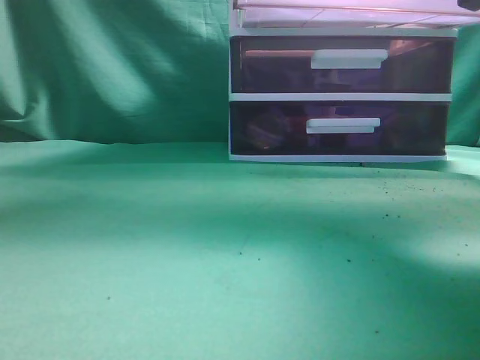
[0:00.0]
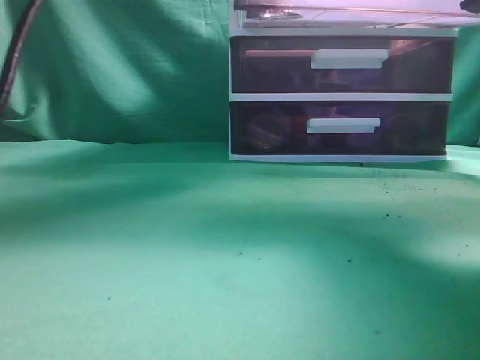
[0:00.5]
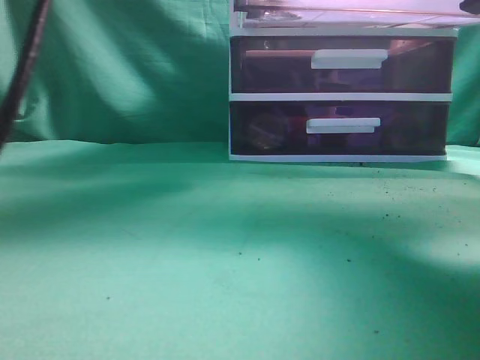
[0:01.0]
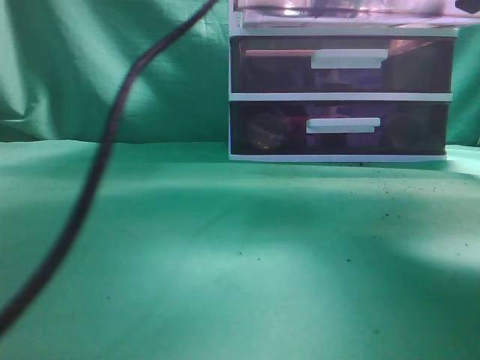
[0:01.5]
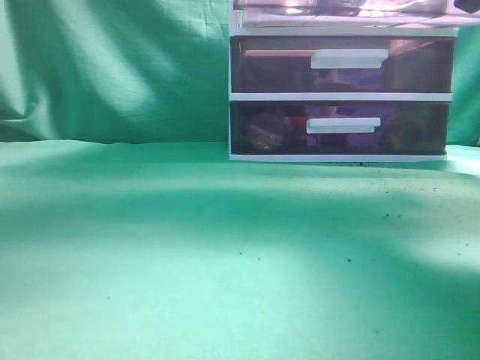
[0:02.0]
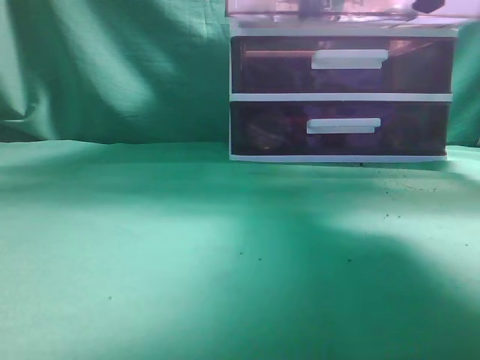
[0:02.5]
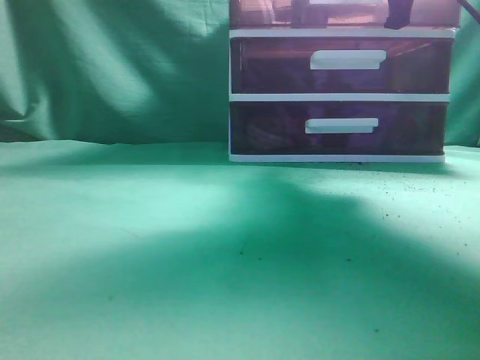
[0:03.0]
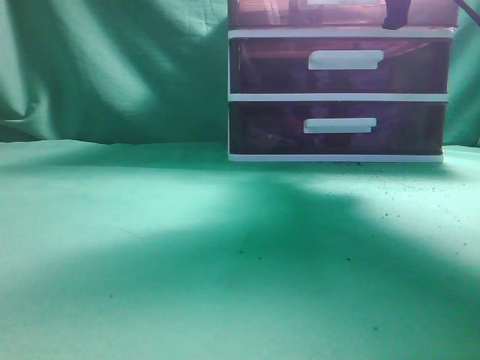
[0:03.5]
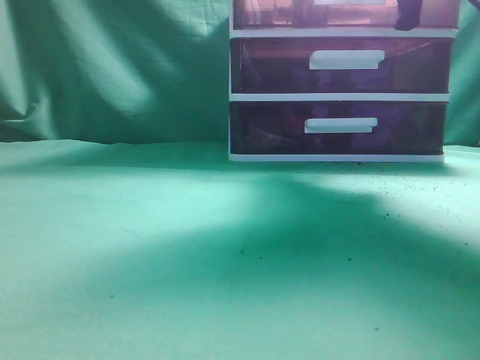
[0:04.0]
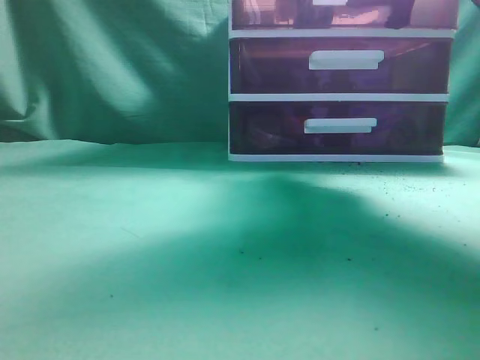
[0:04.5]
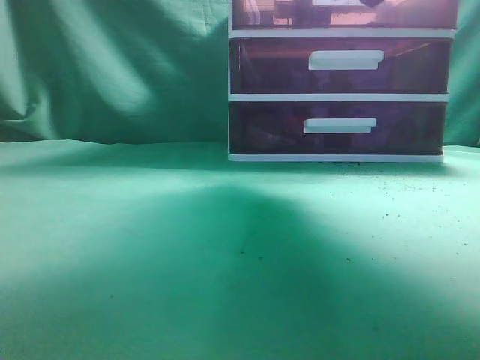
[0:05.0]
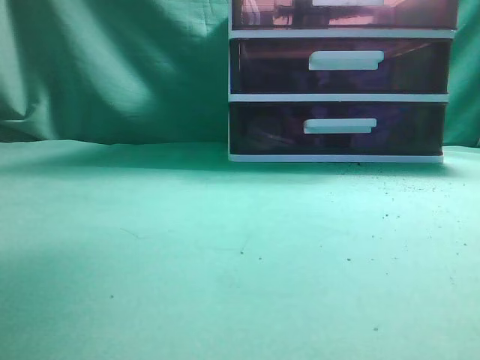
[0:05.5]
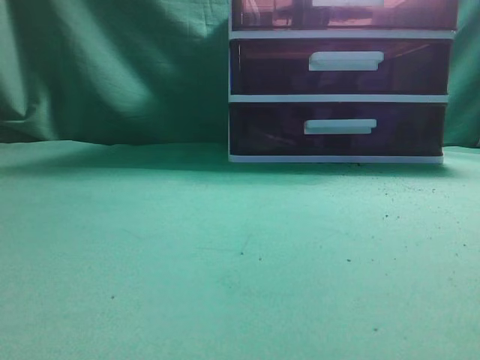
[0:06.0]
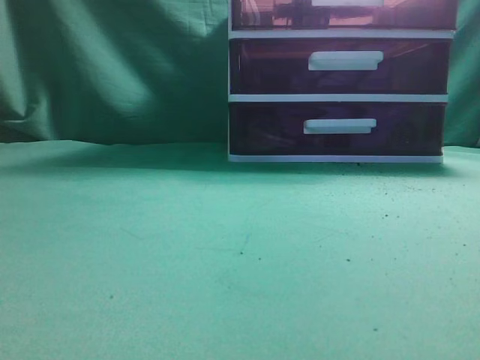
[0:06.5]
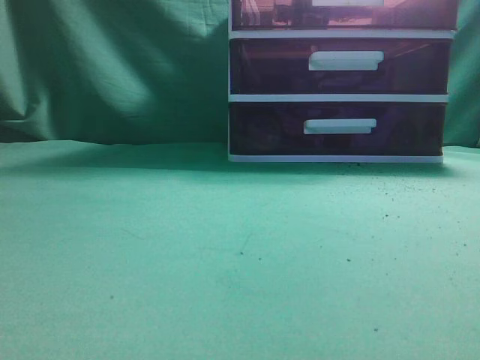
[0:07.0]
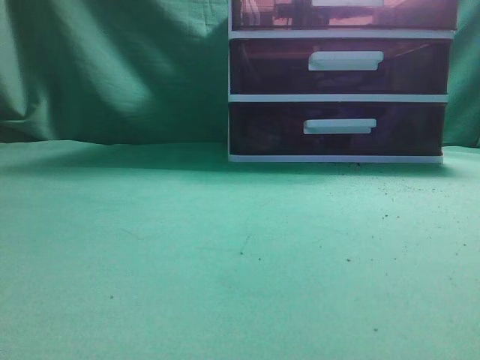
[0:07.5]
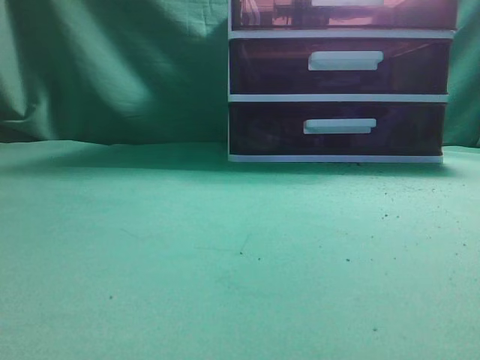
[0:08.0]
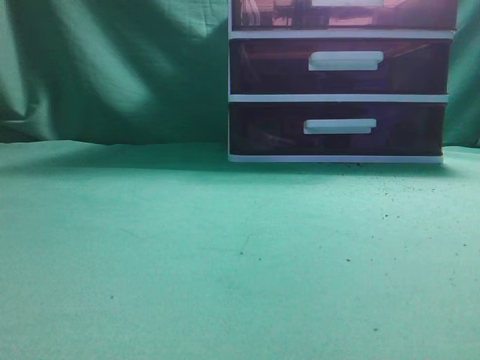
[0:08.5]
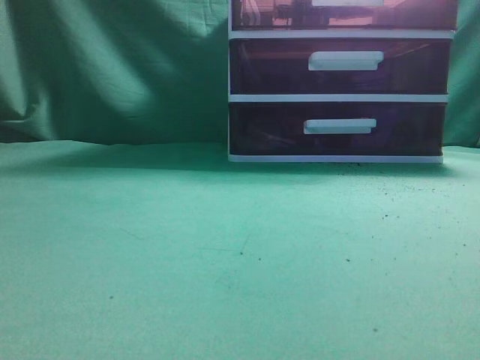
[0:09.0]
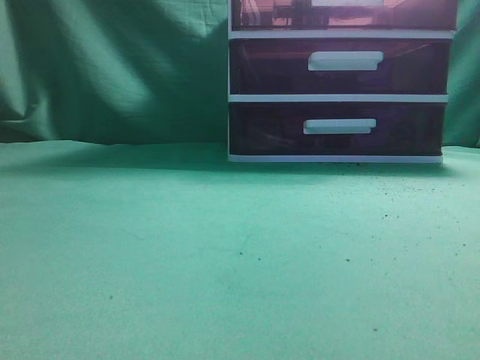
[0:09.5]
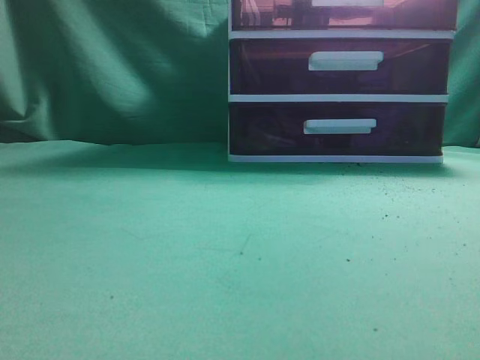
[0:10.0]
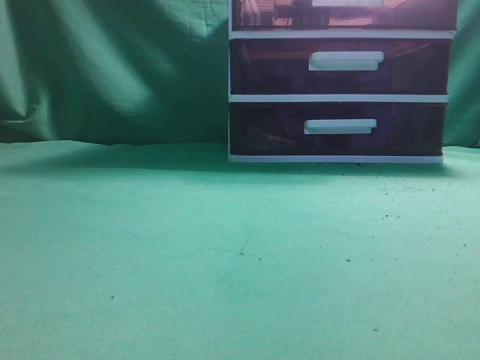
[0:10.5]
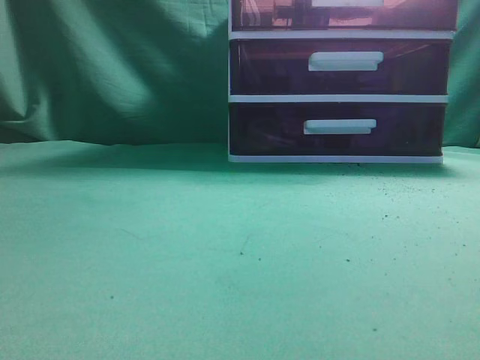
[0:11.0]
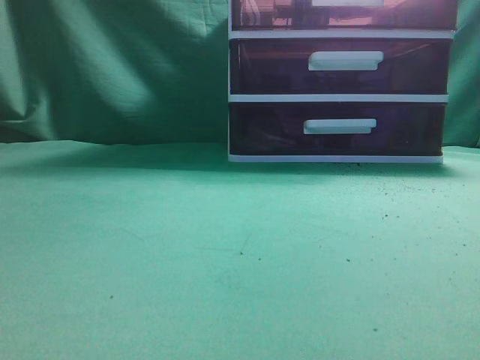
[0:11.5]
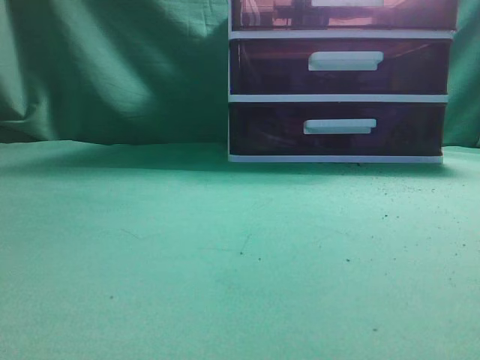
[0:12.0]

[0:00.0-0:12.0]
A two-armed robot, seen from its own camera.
Task of the whole recording: place the water bottle into the drawer.
Step, 0:00.0 to 0:02.0: Place the water bottle inside the drawer.
Step, 0:02.5 to 0:04.5: Close the drawer.
0:00.0 to 0:02.0: The left gripper shifts some 15 cm to the right, forward and downward, and closes.
0:02.0 to 0:04.0: The right gripper heads forward, covering roughly 15 cm; the left gripper heads backward, to the left and upward, covering roughly 25 cm.
0:04.0 to 0:06.0: The right gripper goes roughly 30 cm backward and upward, and opens and closes again, while the left gripper is displaced backward and to the left by some 30 cm.
